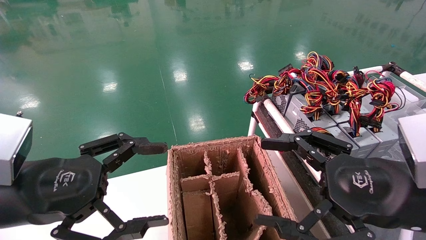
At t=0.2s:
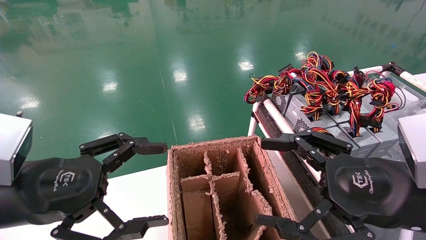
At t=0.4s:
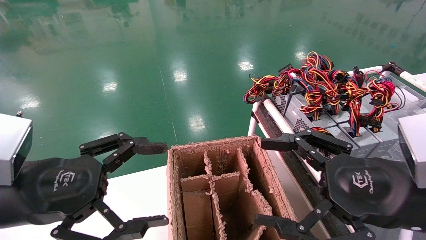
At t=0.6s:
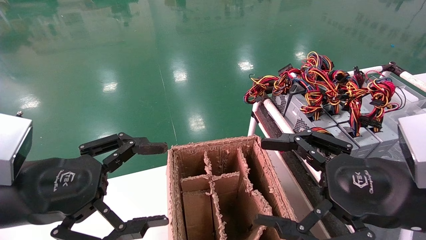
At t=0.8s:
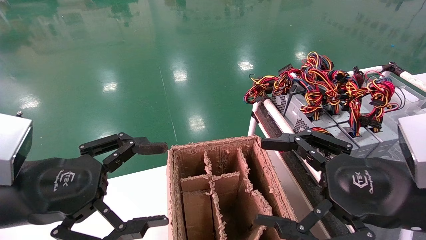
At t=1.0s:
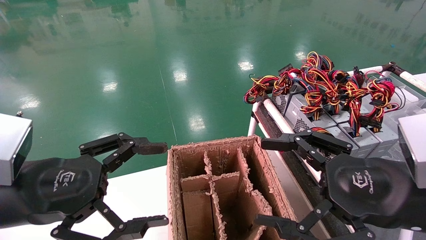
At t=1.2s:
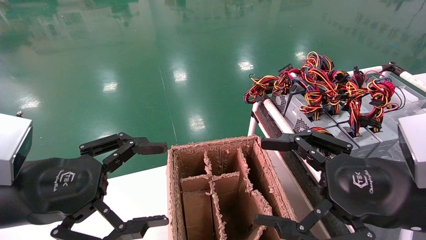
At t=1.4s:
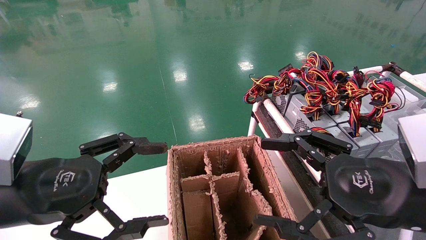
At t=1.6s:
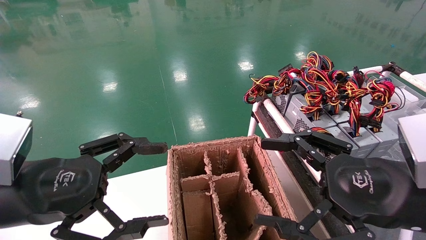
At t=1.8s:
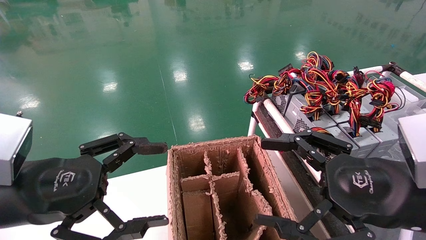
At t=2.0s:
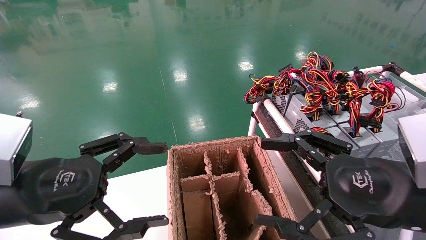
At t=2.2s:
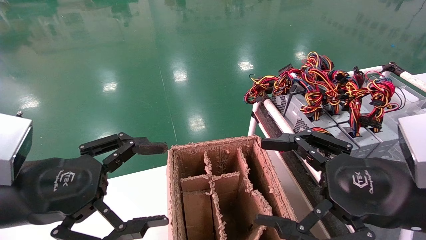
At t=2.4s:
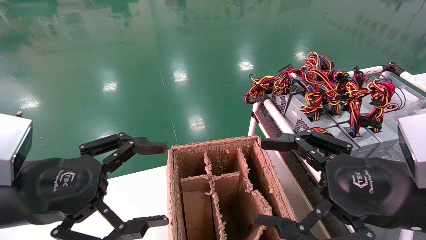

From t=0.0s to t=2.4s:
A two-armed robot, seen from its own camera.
From t=0.0s to t=2.4s: Both grippers stay about where they are.

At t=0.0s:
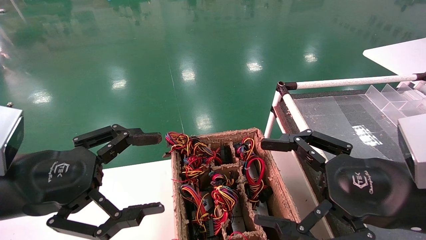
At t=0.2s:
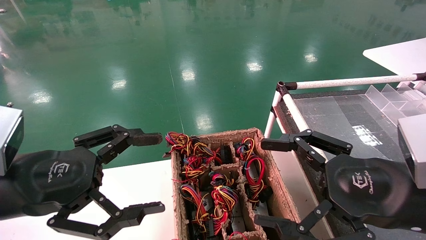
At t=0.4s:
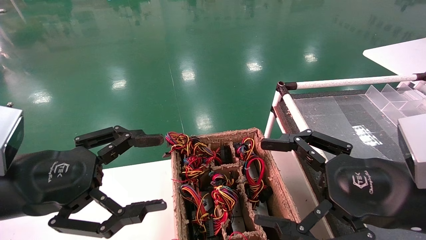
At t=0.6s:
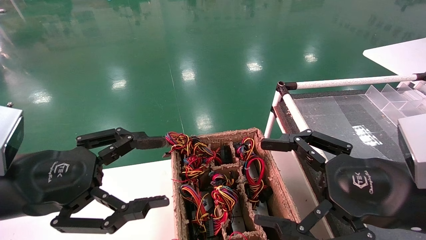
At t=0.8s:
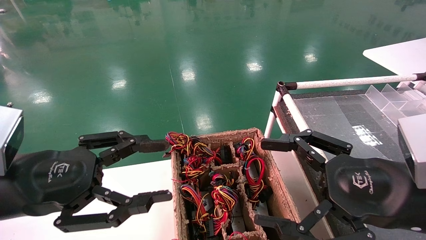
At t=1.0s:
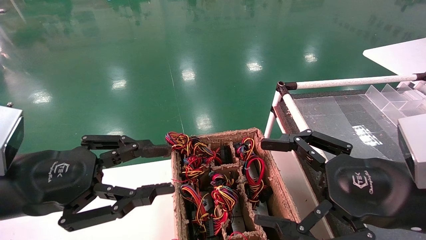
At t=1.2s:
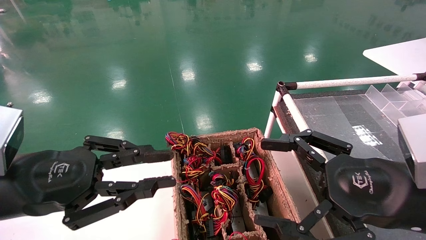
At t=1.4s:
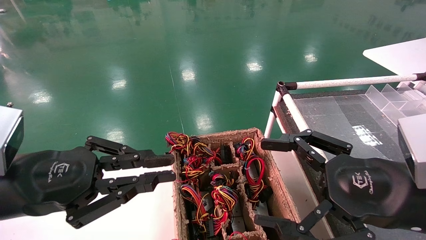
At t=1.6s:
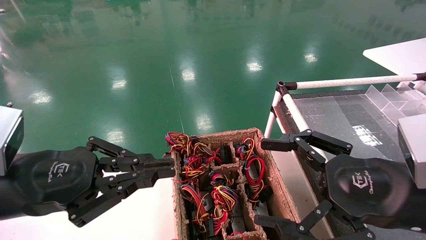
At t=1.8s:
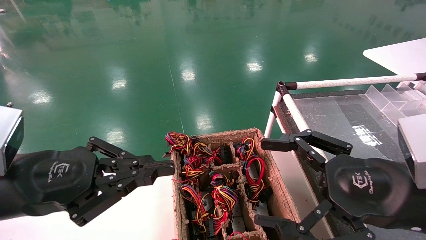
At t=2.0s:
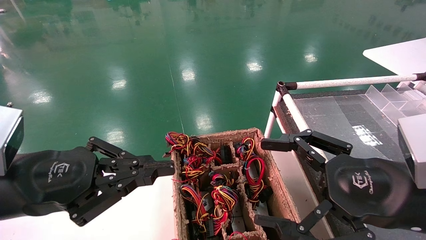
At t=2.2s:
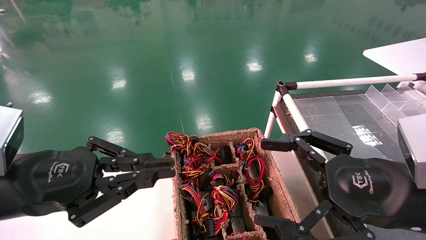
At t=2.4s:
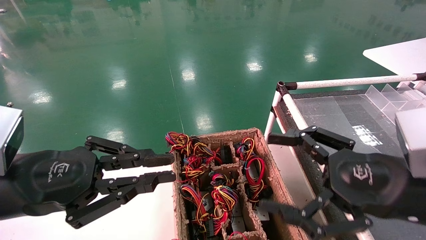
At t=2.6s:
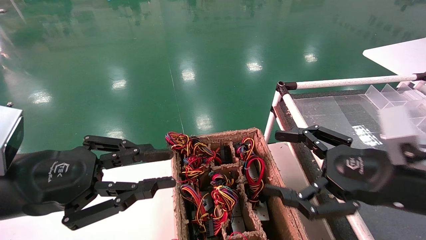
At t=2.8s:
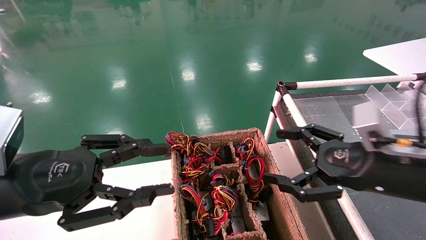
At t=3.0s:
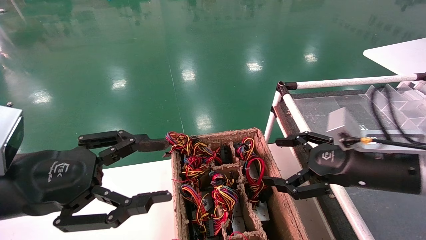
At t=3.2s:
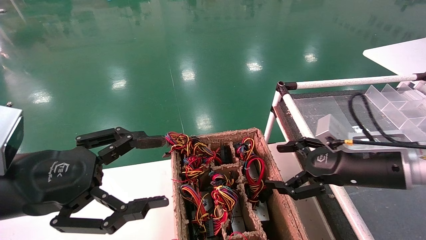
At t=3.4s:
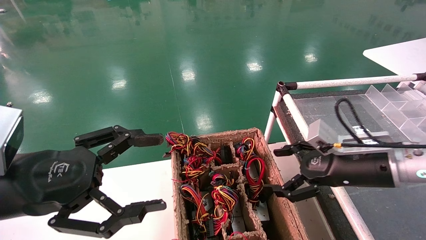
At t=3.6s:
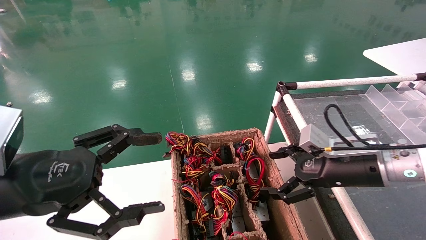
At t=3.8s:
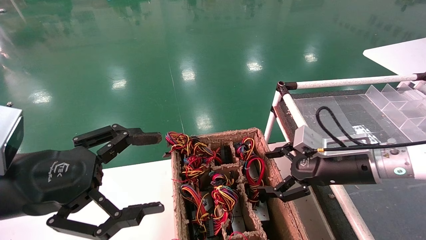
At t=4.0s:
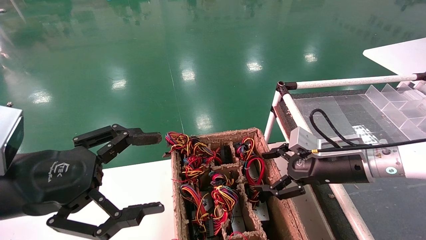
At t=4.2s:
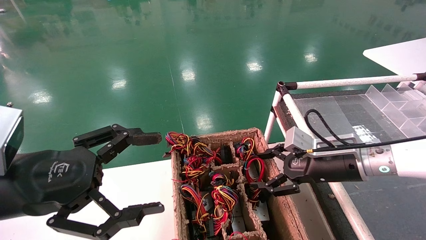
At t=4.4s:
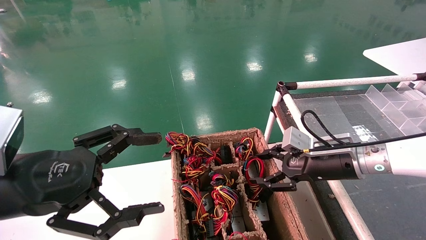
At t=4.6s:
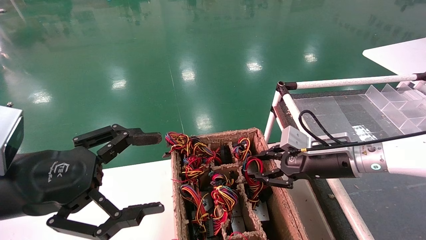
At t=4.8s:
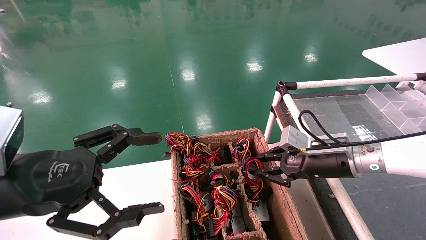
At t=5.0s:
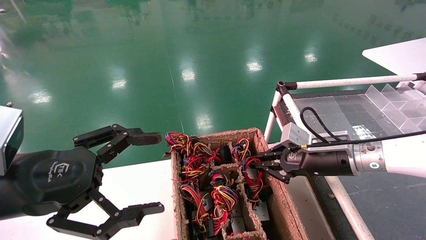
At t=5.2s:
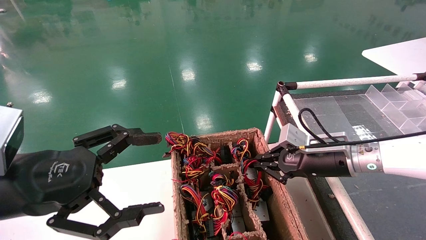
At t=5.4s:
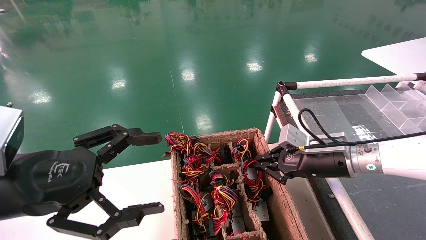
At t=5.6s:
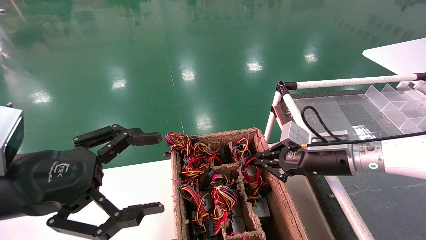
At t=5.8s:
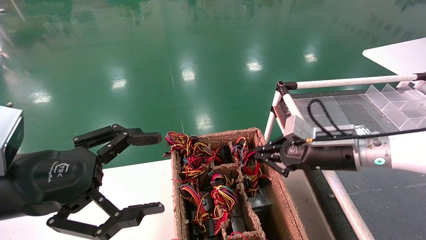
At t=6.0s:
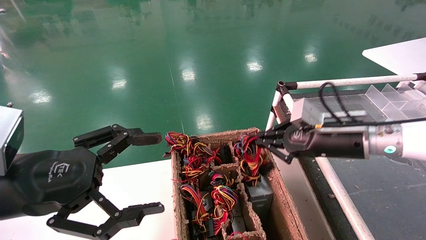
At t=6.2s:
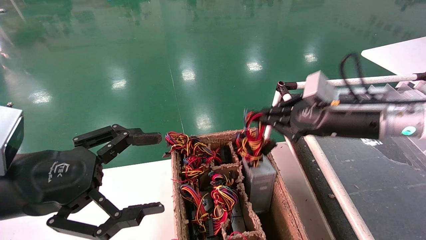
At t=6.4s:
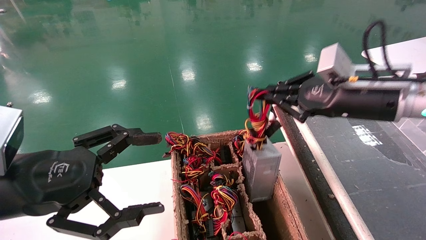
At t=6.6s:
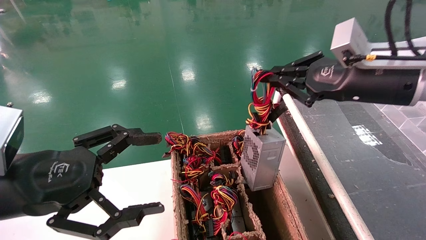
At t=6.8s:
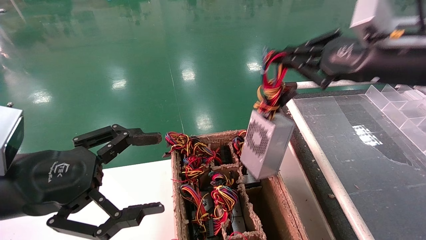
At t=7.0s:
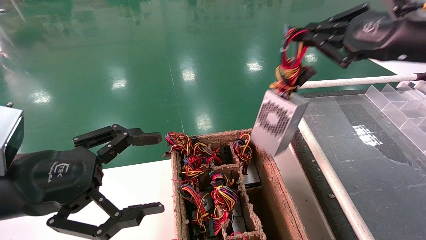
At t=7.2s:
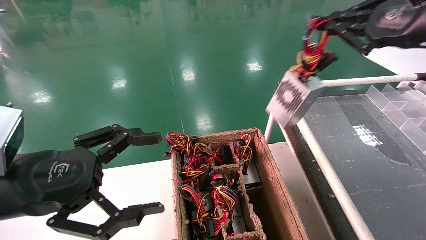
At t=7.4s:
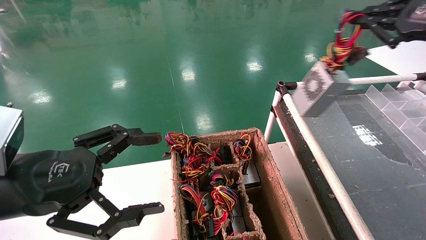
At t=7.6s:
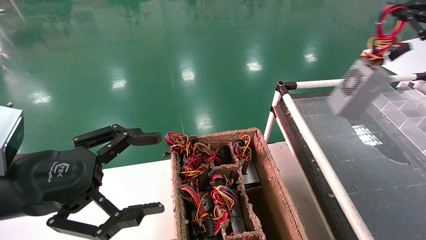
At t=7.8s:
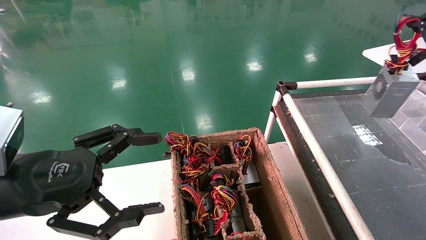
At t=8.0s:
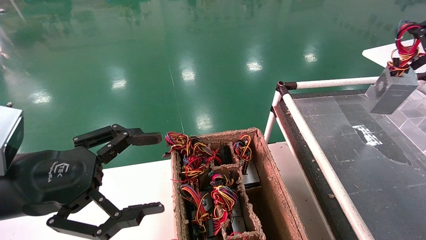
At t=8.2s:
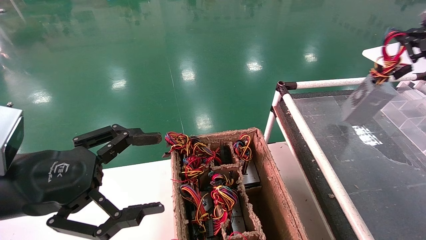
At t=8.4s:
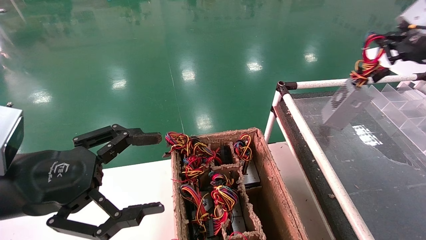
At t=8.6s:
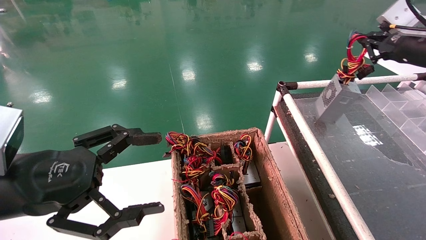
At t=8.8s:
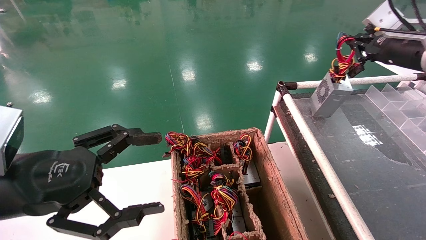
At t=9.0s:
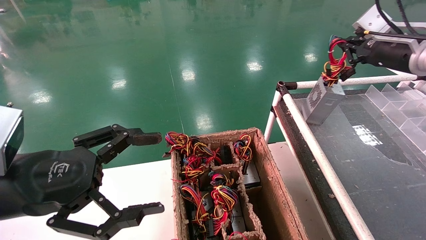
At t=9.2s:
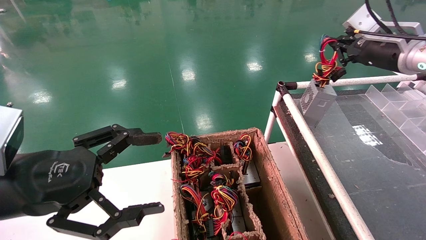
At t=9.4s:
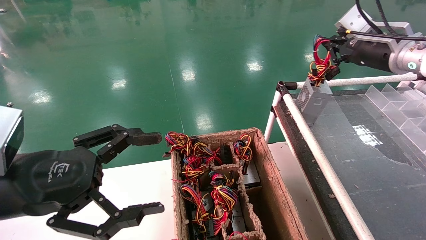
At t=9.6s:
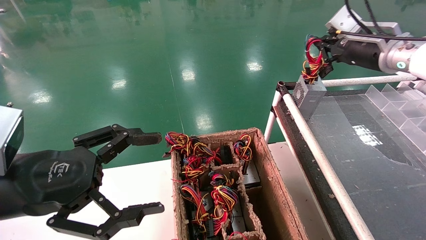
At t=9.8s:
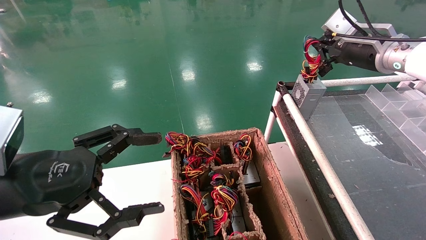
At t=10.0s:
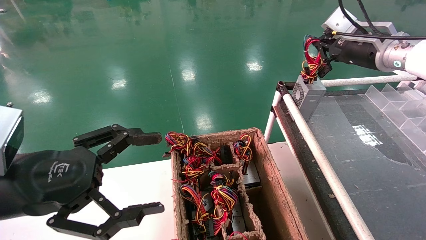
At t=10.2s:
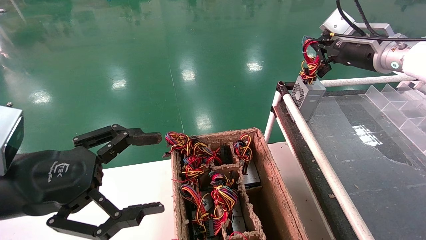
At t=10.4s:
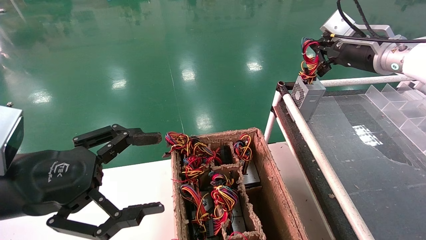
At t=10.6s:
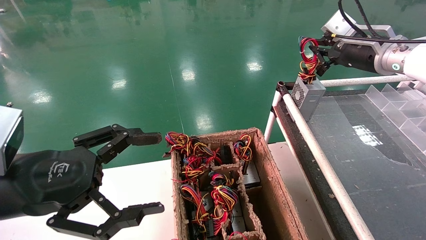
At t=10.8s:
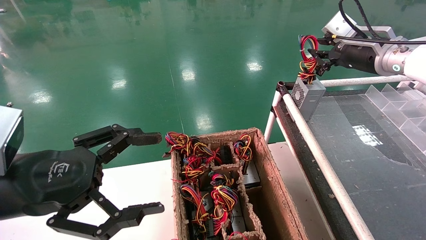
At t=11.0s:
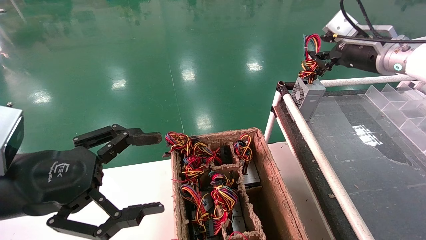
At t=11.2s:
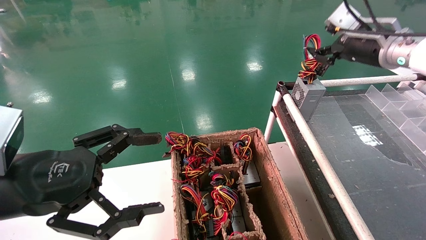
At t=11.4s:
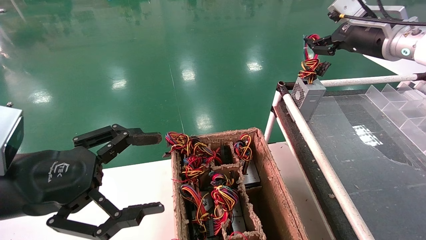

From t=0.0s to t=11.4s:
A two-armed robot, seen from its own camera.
Step, from t=1.8s to t=5.4s: Grab and lift the power supply from the large box.
Step, from t=5.6s to t=10.4s: Place the power supply on the operating table.
From t=0.0s to t=1.4s: The left gripper closes up.
From t=1.4s to t=2.8s: The right gripper is displaced forward by about 5 cm.
From t=2.8s to t=4.2s: The right gripper travels forward by some 10 cm. Meanwhile the left gripper opens up.
From t=4.2s to t=5.6s: The right gripper closes its fingers.
From t=5.6s to t=7.2s: The right gripper goes roughly 25 cm upward and to the right.
From t=7.2s to t=8.6s: The right gripper shifts some 10 cm forward and to the right.
From t=8.6s to t=10.0s: The right gripper heads to the left, covering approximately 10 cm.
From t=10.0s to t=11.4s: The right gripper opens.

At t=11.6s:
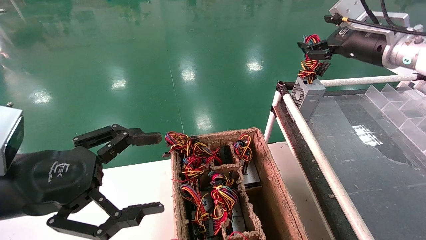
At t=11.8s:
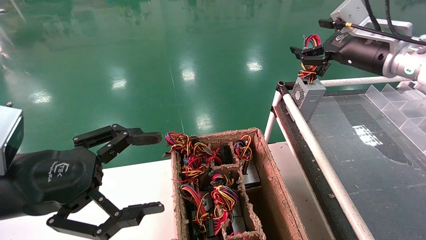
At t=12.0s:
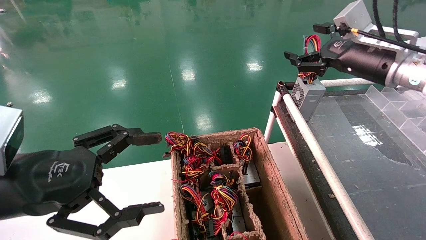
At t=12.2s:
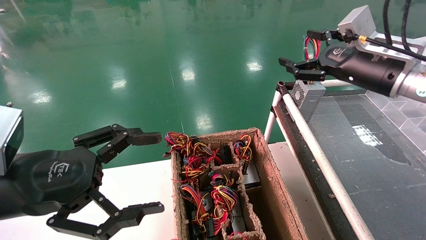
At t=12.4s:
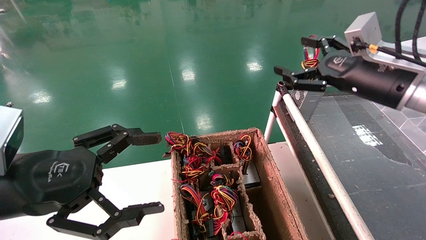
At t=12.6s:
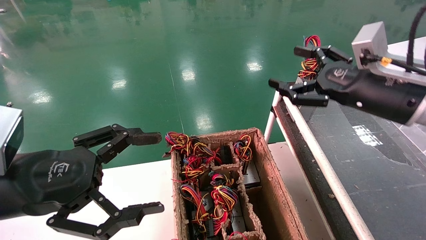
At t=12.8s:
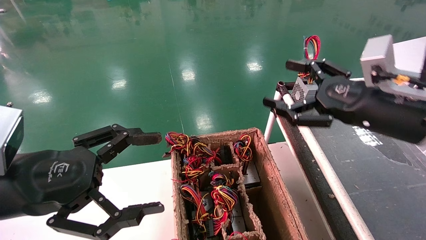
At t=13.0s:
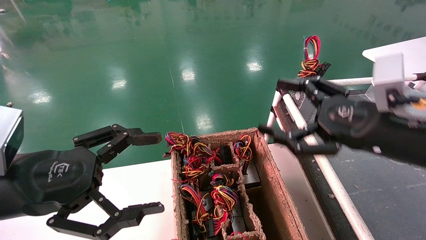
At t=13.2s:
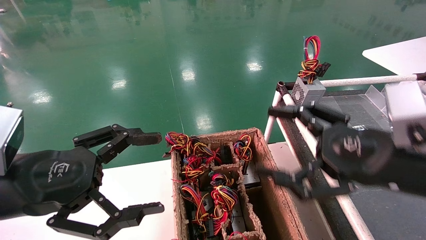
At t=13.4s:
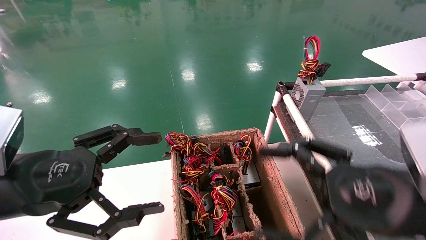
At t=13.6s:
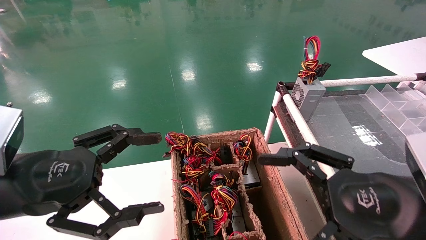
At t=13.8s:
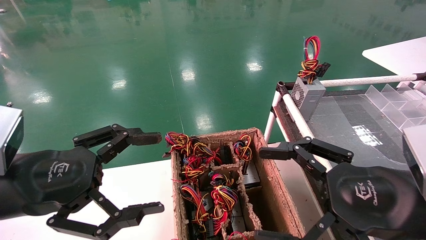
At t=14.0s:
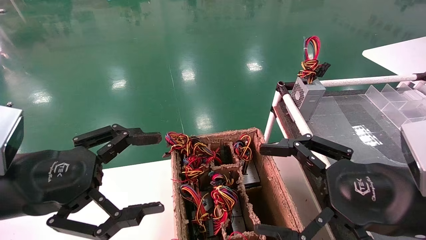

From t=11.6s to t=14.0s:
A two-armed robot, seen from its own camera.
From t=11.6s to t=12.8s: The right gripper goes about 15 cm backward and downward.
From t=12.8s to t=14.0s: The right gripper is displaced backward and downward by some 10 cm.
